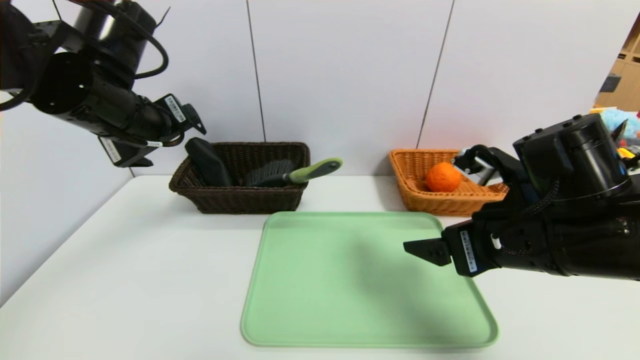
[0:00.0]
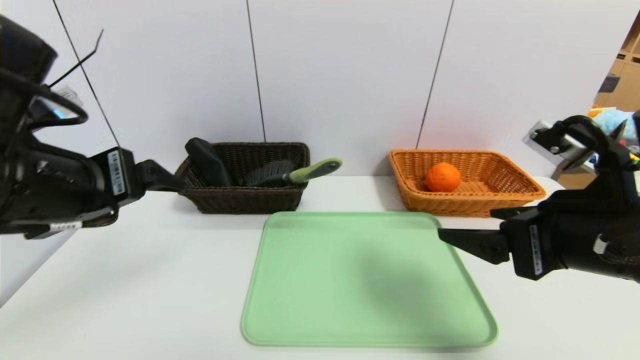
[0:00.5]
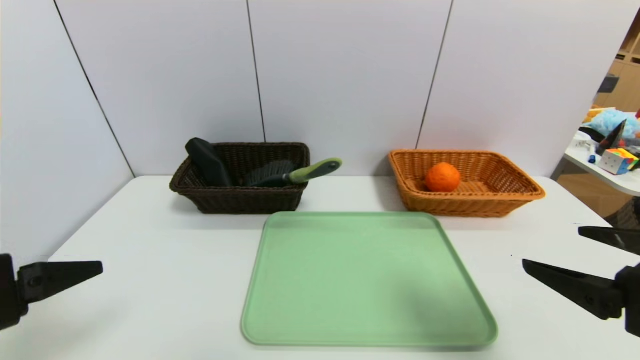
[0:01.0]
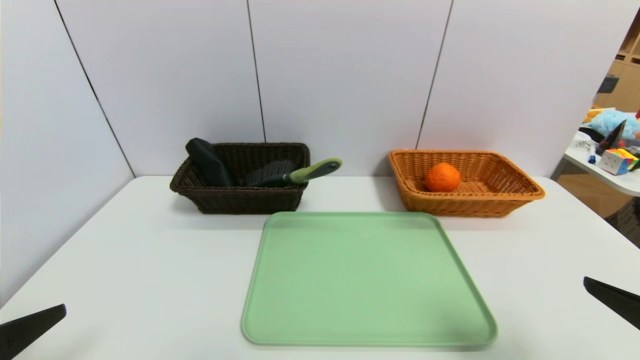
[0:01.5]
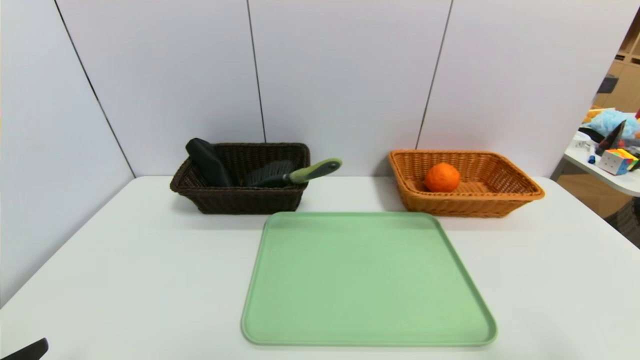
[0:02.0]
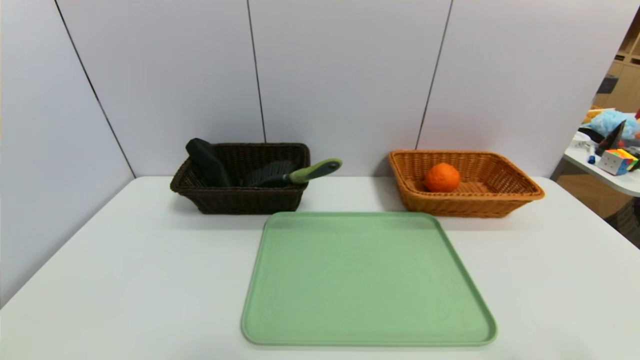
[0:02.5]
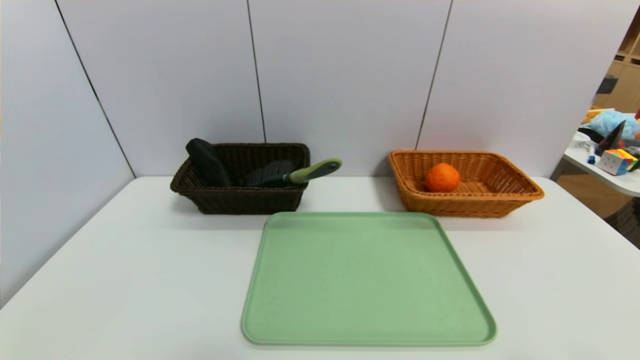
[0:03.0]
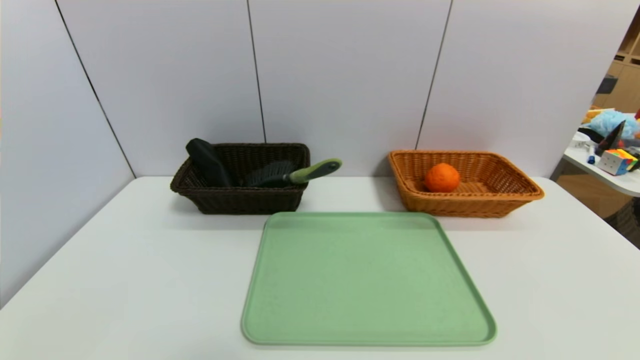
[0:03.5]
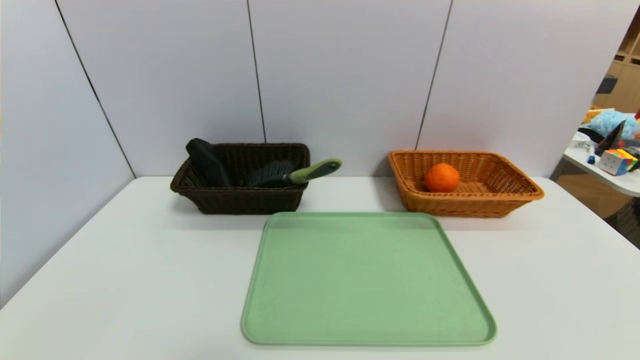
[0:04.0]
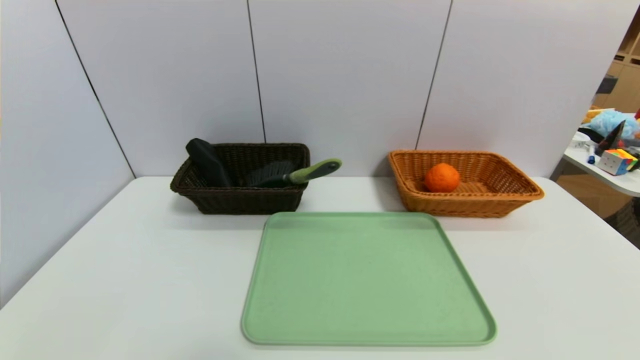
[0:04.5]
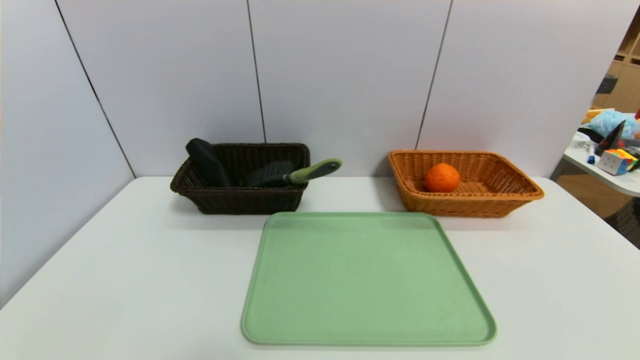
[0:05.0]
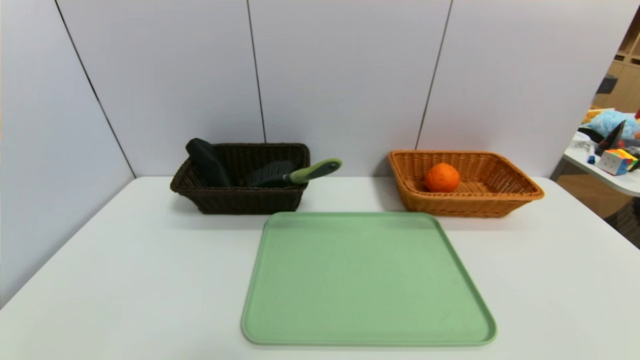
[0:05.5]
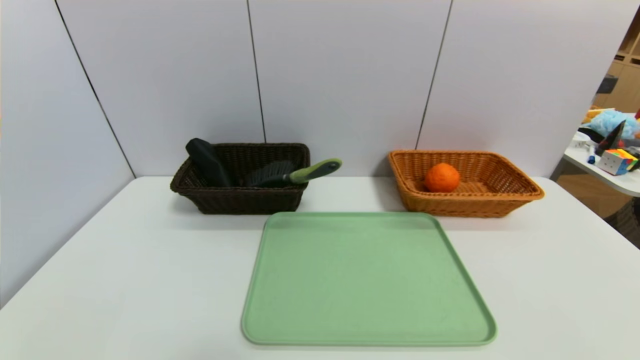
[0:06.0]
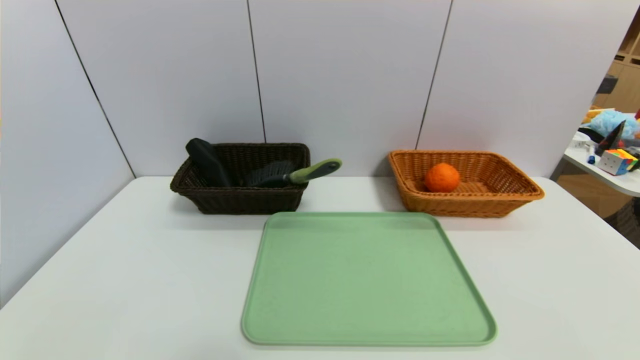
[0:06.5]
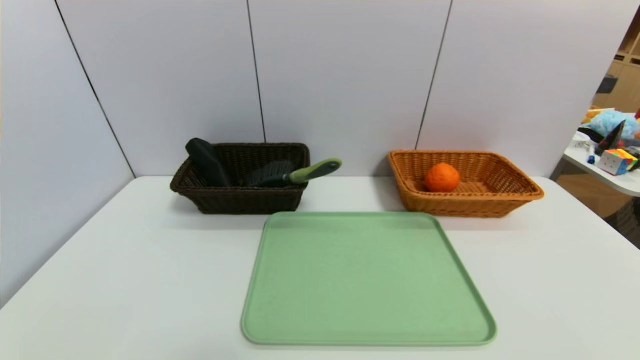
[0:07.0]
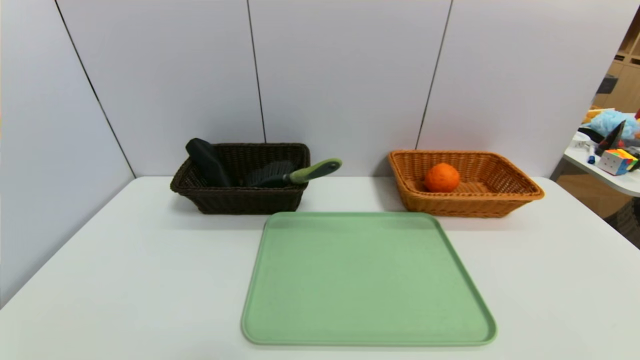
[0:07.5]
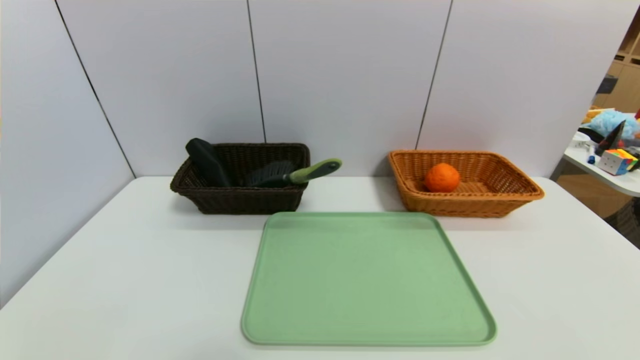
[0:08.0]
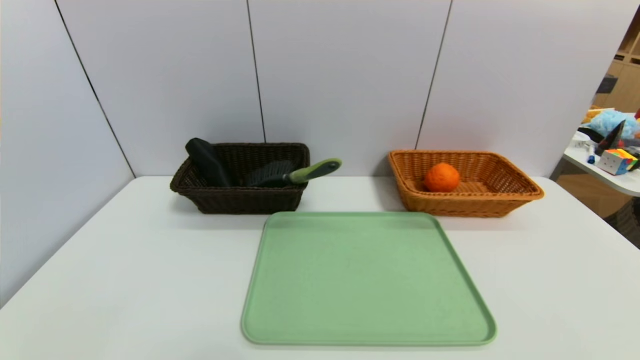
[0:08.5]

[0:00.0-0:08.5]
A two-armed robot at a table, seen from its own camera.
Task of the whole recording: place the food in the right basket with the right gripper, and place the non food items in the left basket with the left gripper.
0:00.0 to 0:02.0: The right gripper is displaced backward and to the right by some 20 cm. Meanwhile the left gripper goes about 30 cm backward and downward.
0:02.0 to 0:04.0: The right gripper goes roughly 10 cm downward and backward.
